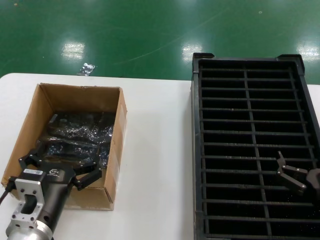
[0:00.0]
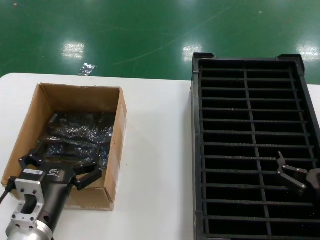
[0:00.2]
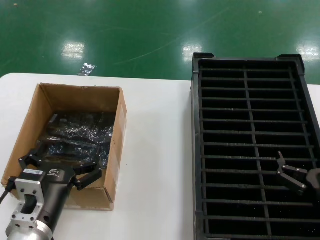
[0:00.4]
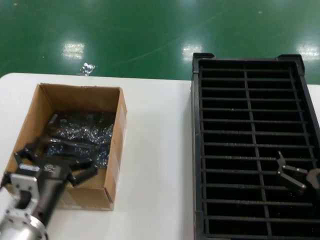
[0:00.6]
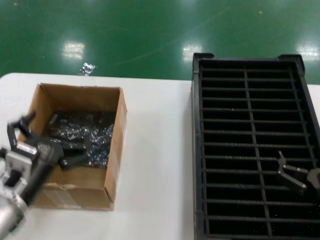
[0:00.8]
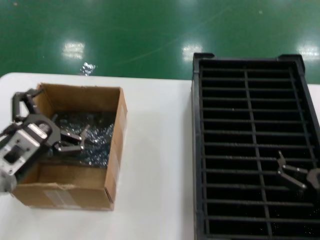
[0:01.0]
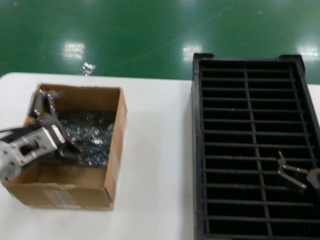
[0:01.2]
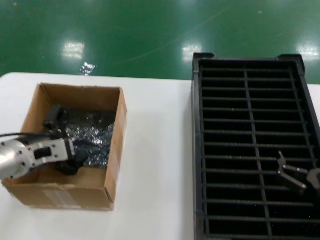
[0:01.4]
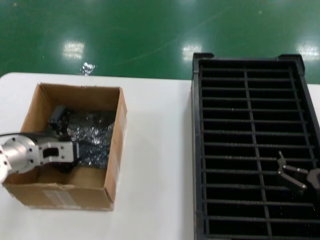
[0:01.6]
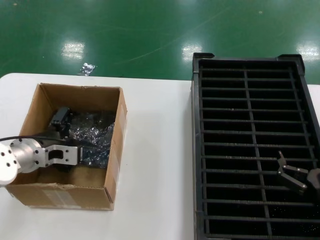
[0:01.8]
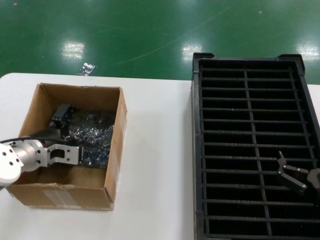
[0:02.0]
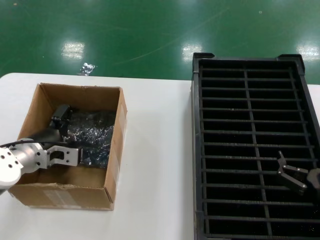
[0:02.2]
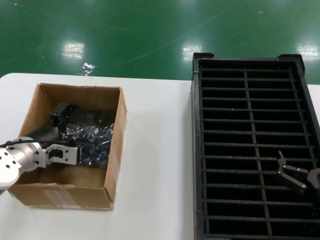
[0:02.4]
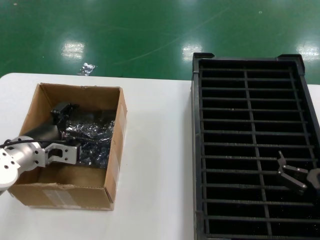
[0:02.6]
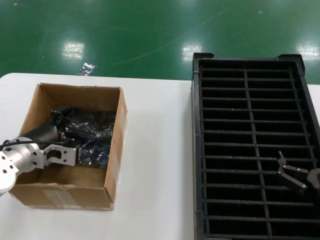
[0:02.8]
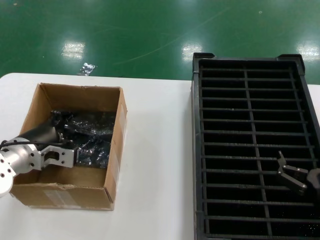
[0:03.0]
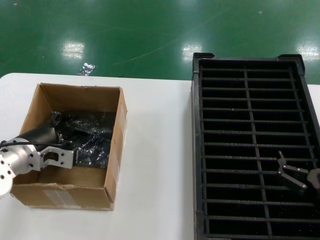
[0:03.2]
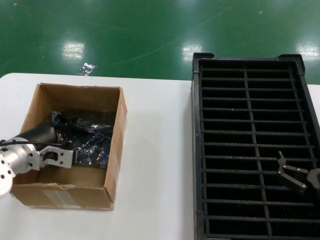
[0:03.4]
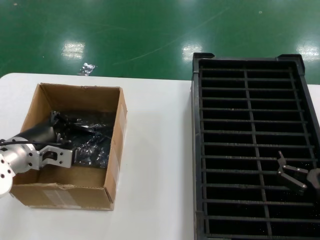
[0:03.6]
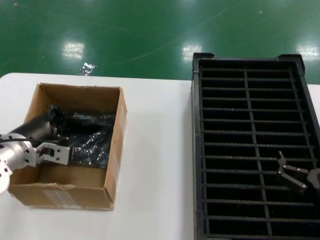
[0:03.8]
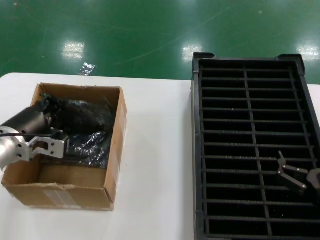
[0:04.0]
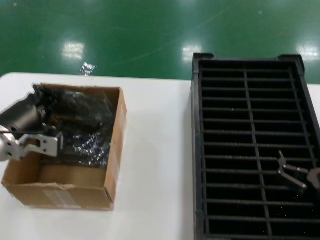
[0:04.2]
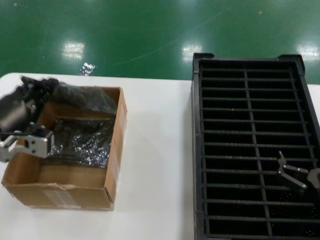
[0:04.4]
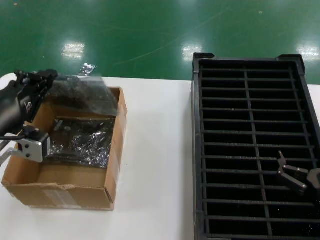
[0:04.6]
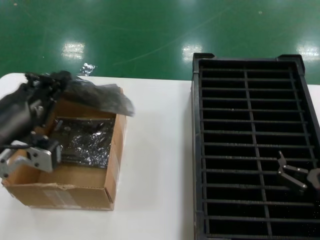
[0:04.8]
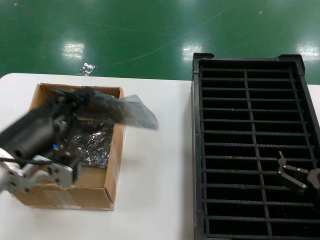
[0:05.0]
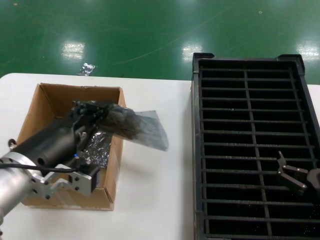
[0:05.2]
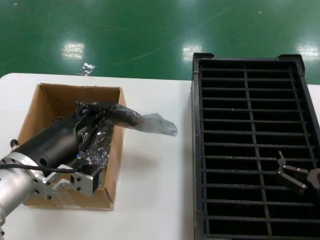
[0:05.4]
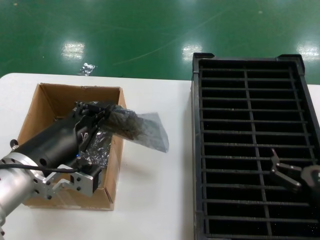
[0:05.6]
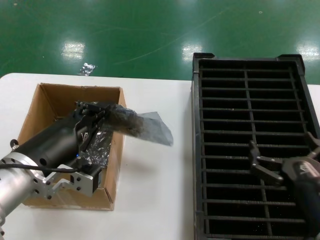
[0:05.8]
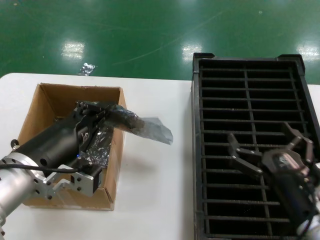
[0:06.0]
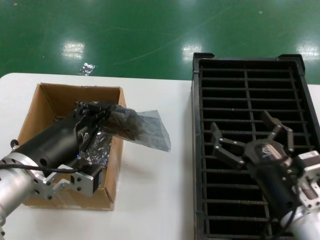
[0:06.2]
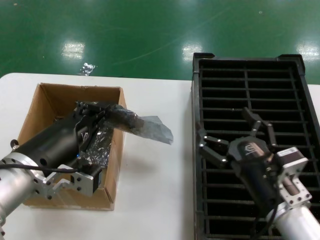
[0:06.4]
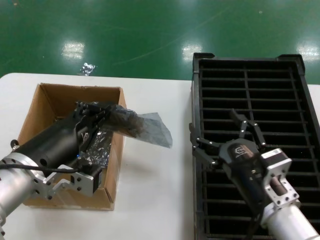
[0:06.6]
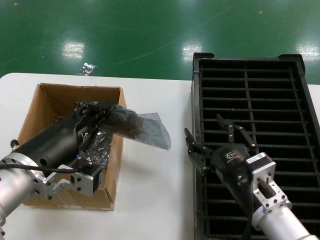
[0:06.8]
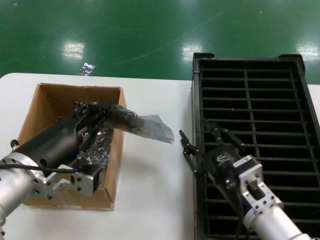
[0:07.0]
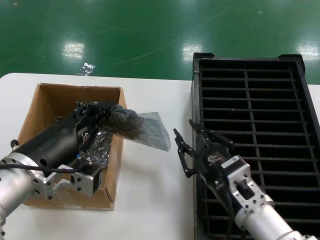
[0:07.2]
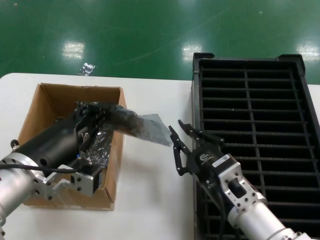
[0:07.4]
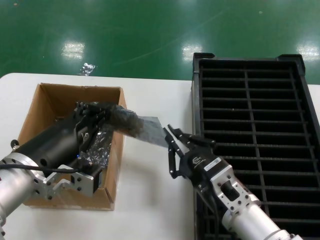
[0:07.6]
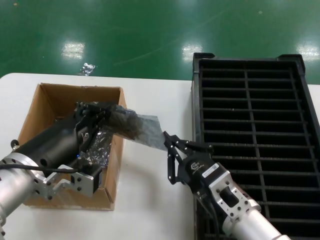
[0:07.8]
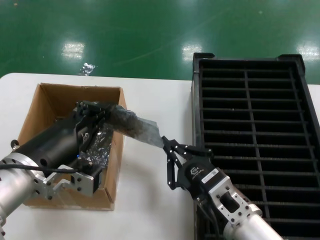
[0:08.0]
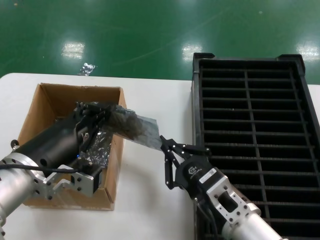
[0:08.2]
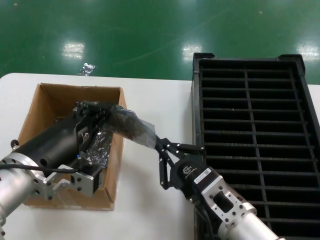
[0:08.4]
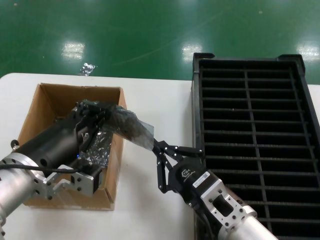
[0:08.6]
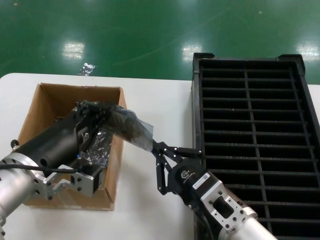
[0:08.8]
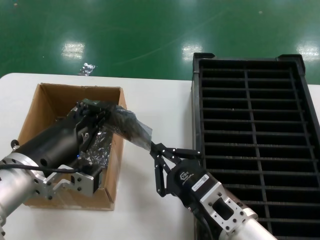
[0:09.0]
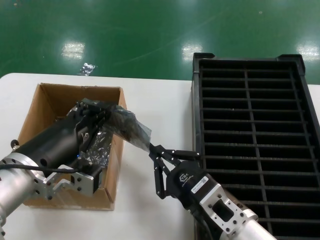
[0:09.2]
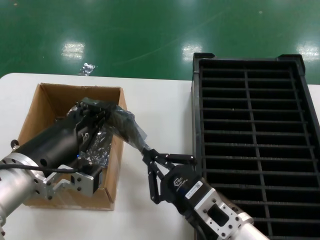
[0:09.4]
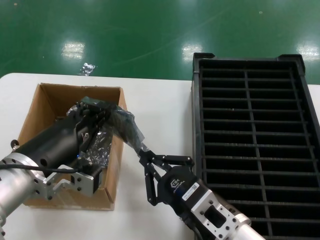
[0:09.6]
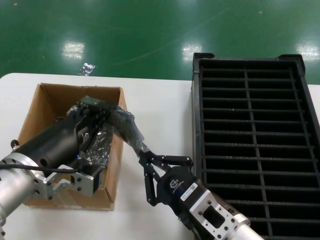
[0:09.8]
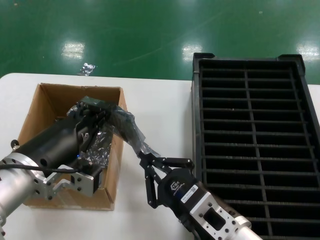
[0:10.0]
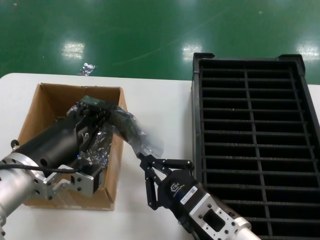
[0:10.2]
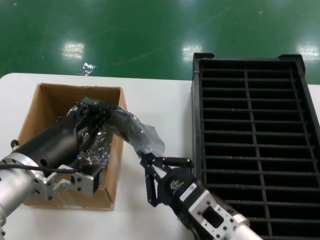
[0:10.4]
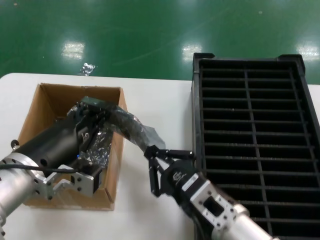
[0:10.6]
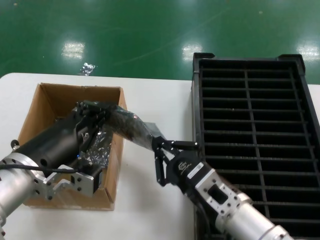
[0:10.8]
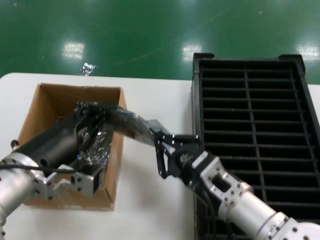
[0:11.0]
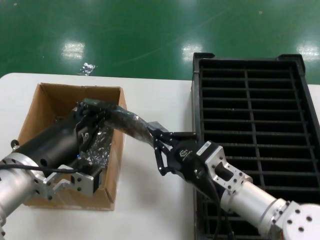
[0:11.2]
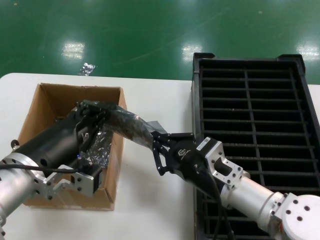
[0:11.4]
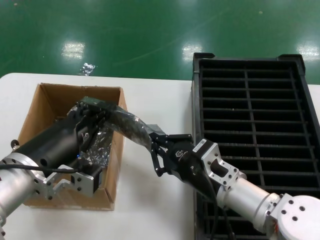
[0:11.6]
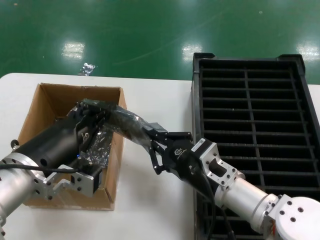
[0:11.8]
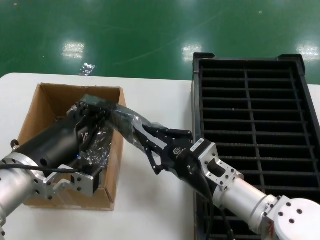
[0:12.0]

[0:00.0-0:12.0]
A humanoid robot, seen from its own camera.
Task of the whole recording: take out graphics card from box remove packaging put into black container.
Step, 0:00.0 to 0:03.6: Grasp the bag.
Step, 0:04.0 to 0:05.2: Lift the bag.
0:00.0 to 0:01.6: The left hand shifts roughly 20 cm forward, to the left and upward.
0:01.6 to 0:03.0: The hands stay close to where they were, moving slightly.
0:03.0 to 0:04.4: The left hand moves backward and upward, roughly 10 cm.
0:04.4 to 0:06.0: The right hand moves to the left, some 5 cm, while the left hand moves to the right and backward, some 10 cm.
0:06.0 to 0:07.6: The right hand travels to the left by roughly 10 cm.
0:07.6 to 0:10.4: The hands make only small movements.
0:10.4 to 0:12.0: The right hand heads forward, covering some 10 cm.

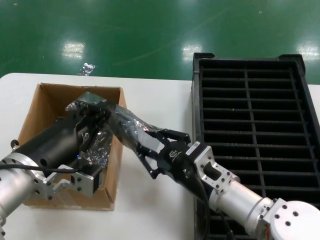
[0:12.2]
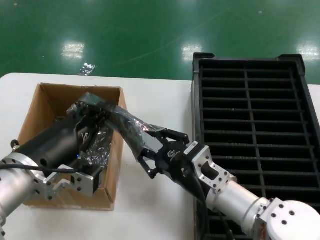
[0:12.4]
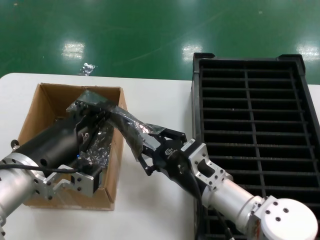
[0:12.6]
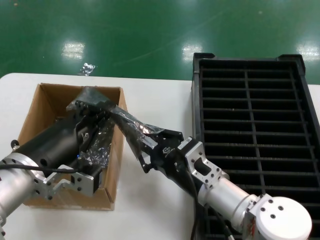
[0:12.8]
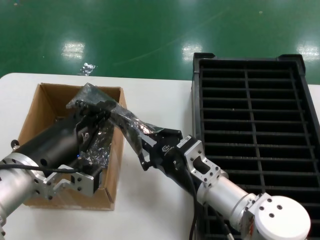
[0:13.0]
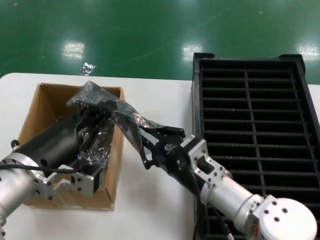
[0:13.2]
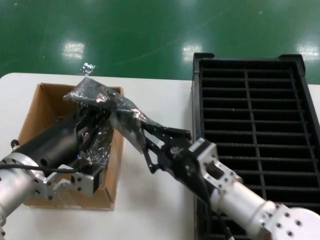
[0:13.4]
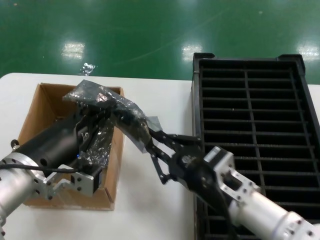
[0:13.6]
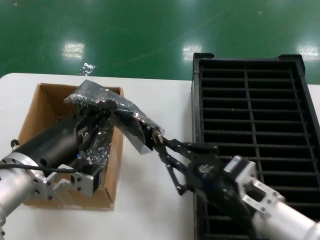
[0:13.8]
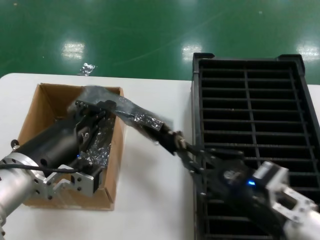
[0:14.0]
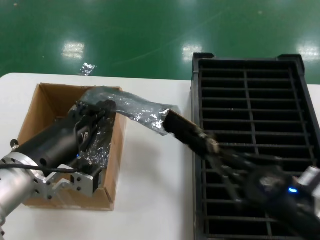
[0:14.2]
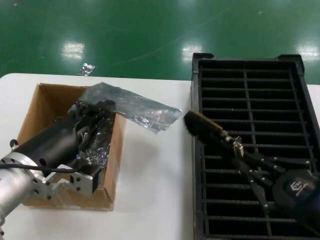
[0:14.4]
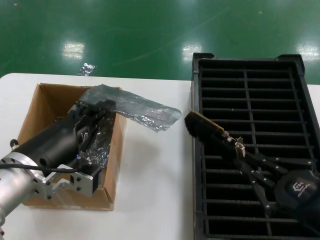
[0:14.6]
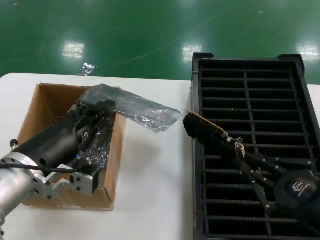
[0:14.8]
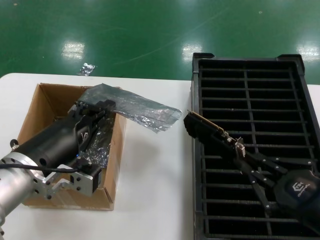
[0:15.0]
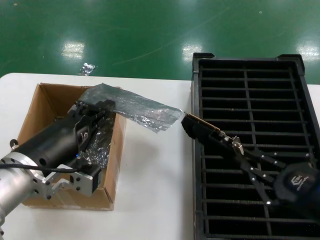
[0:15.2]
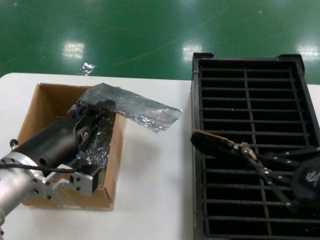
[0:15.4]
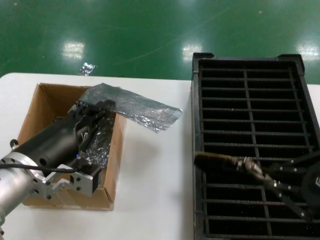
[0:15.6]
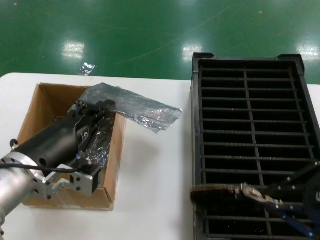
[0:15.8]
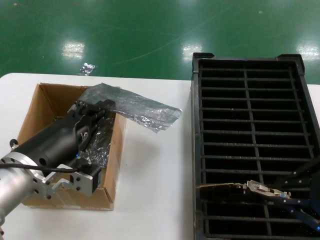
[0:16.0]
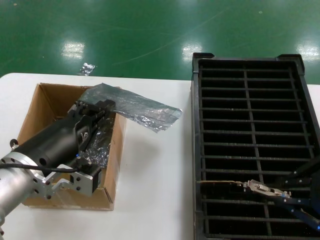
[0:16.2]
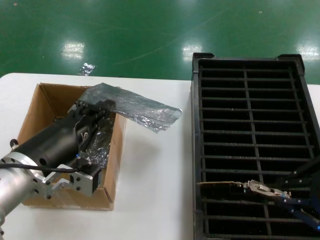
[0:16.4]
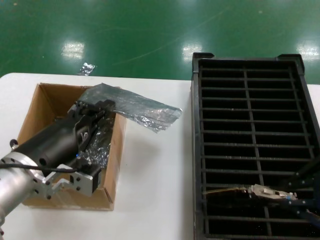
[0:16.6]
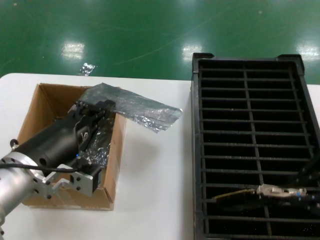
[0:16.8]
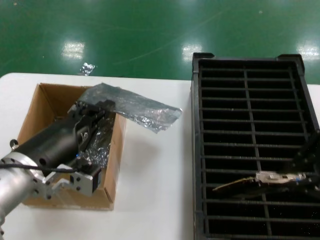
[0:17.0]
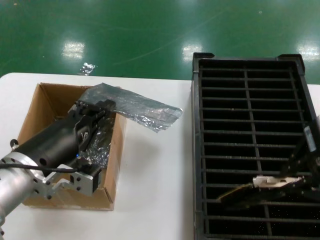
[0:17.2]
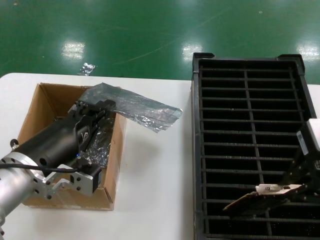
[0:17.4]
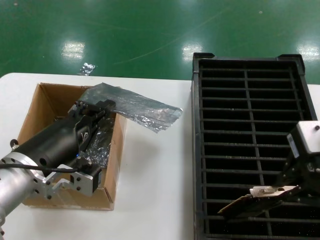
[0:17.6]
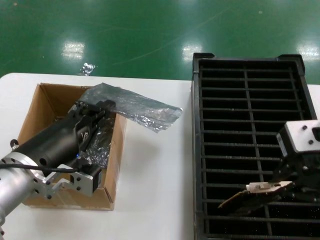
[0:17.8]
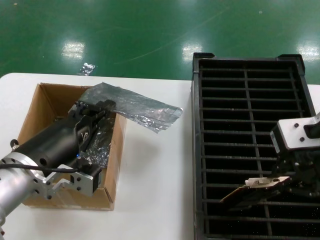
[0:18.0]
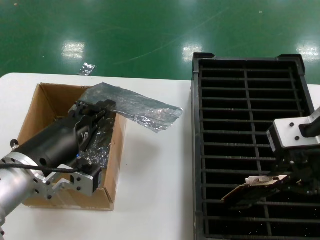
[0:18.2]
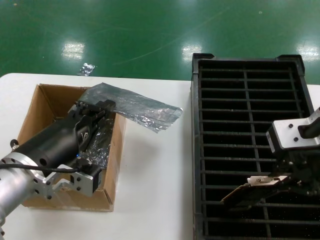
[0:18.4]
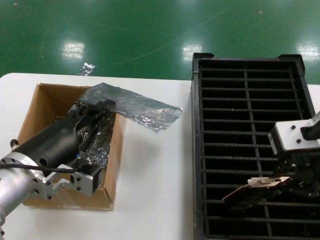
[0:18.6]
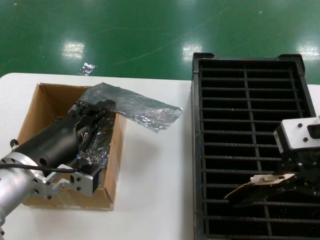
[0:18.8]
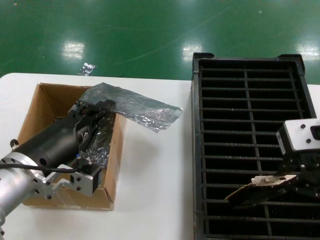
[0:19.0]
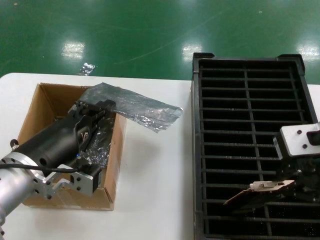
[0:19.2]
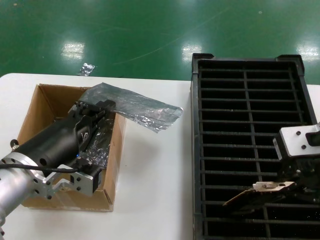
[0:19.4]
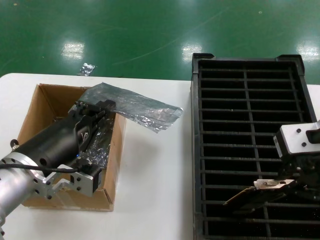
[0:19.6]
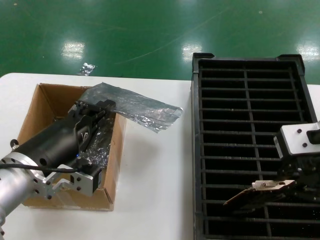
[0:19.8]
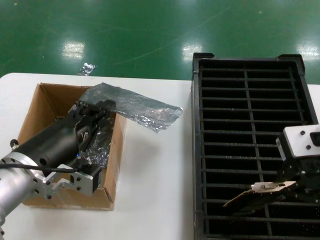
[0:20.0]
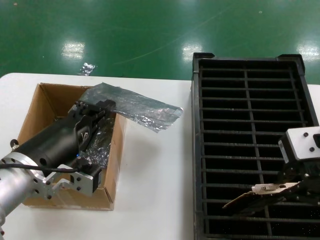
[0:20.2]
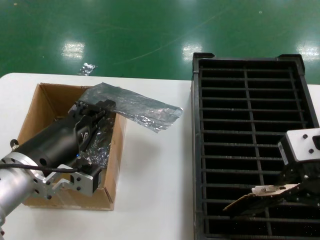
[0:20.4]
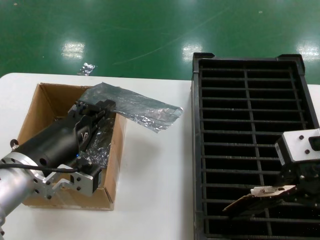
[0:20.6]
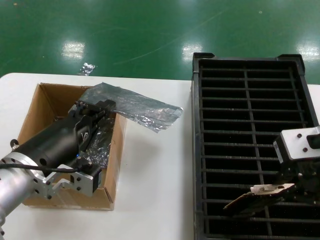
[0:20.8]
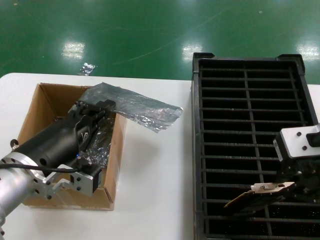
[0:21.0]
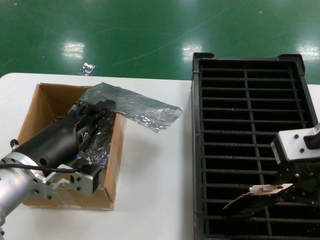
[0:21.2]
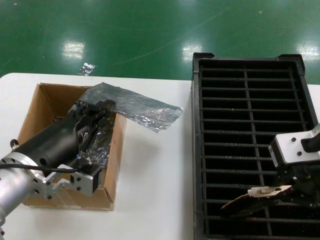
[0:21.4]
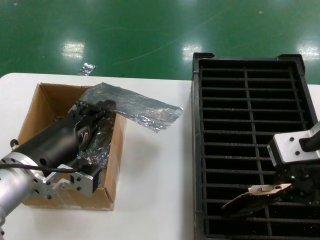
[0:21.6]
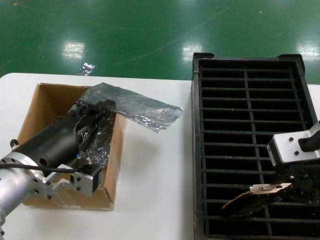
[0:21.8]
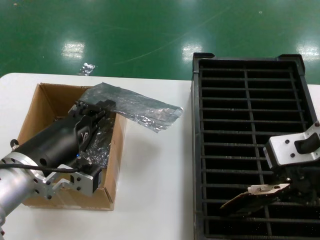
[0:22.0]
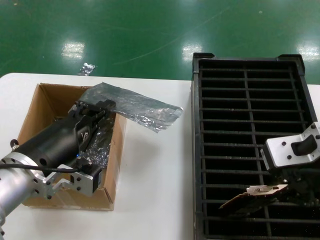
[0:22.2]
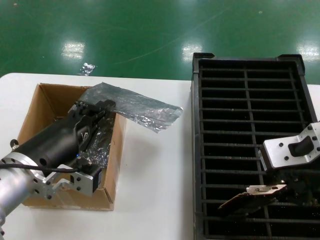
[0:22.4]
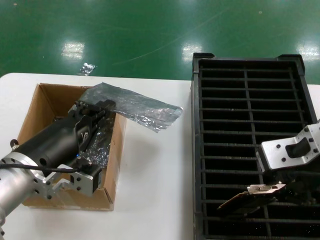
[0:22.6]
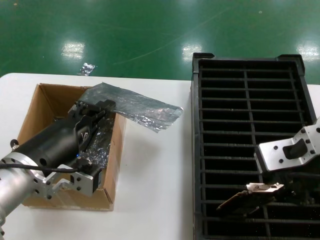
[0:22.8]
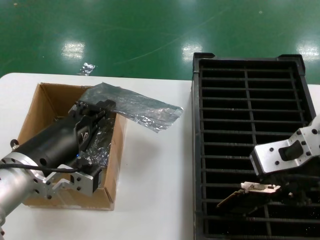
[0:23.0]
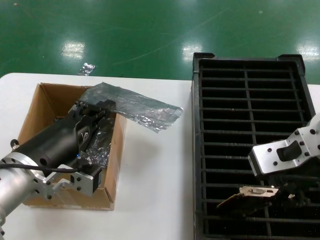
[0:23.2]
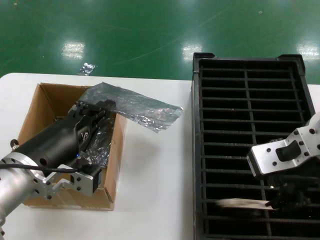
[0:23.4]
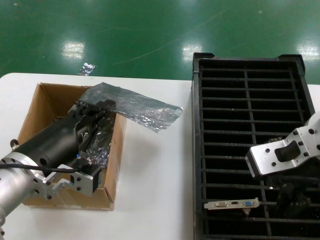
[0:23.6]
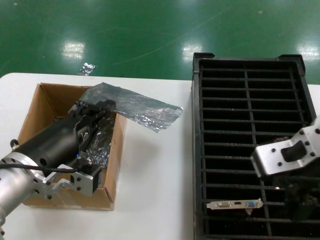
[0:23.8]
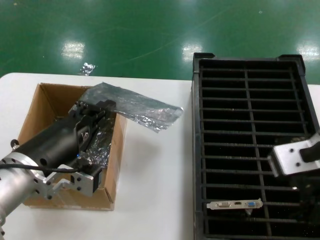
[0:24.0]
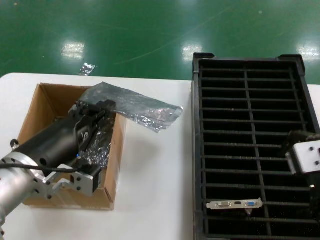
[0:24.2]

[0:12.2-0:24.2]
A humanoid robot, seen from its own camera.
Task of the whole recording: take out graphics card from box remove packaging put into black container.
Step, 0:12.2 to 0:14.6: Take out the hard disk of the bag.
Step, 0:14.8 to 0:23.4: Place the hard disk in the hard disk enclosure.
0:12.2 to 0:13.8: The right hand travels backward by about 5 cm.
0:13.8 to 0:15.2: The right hand is displaced to the right, backward and upward by some 15 cm.
0:15.2 to 0:16.6: The right hand goes approximately 15 cm upward.
0:16.6 to 0:18.2: The right hand moves to the left and forward, roughly 15 cm.
0:18.2 to 0:24.2: The hands make only small movements.
